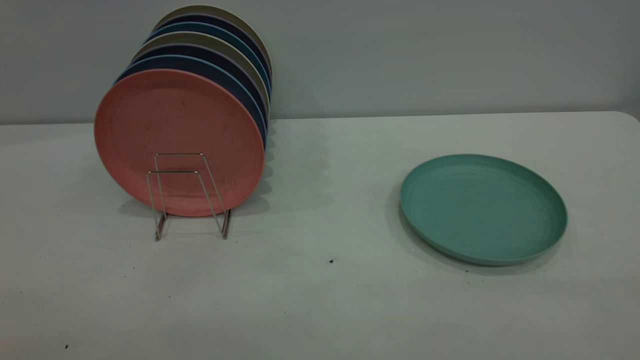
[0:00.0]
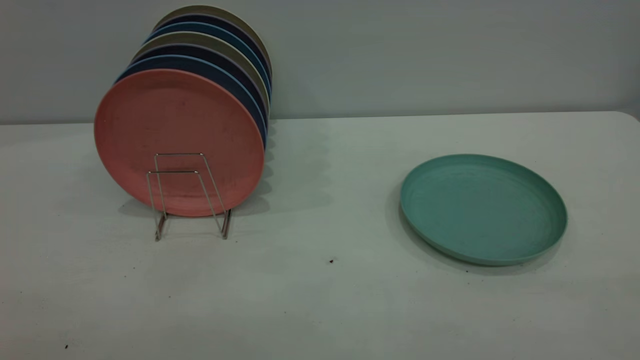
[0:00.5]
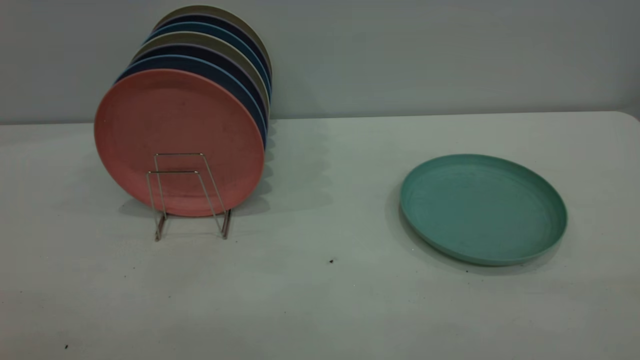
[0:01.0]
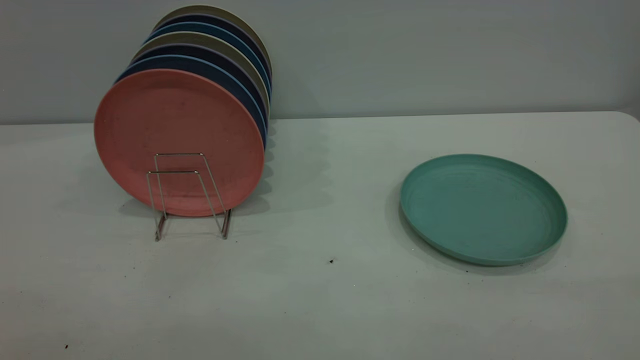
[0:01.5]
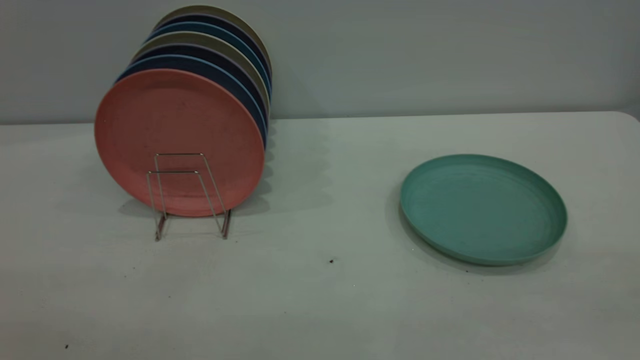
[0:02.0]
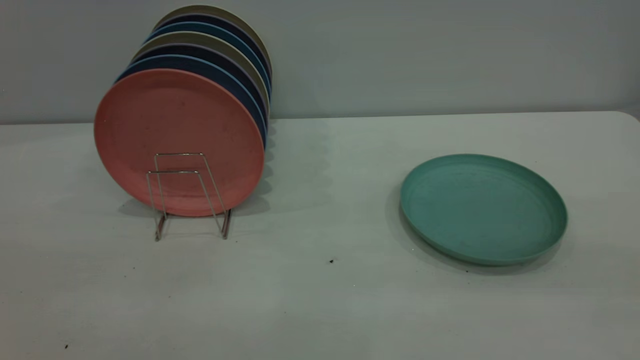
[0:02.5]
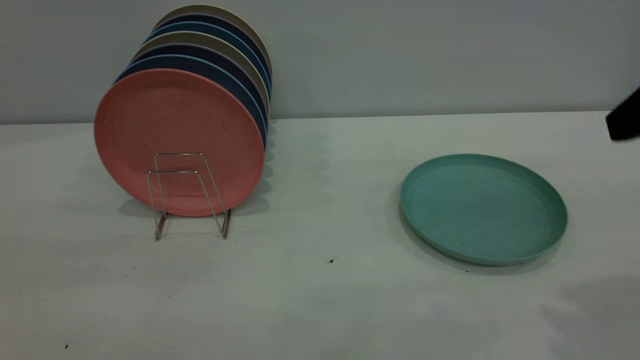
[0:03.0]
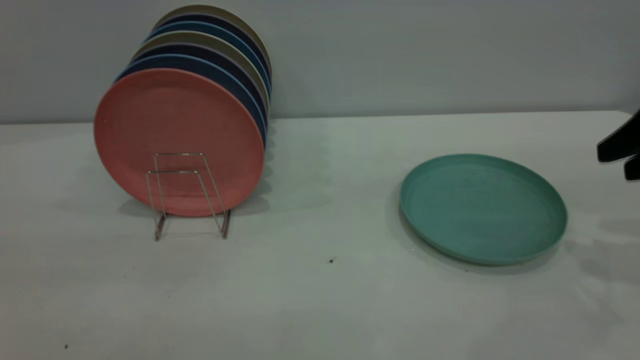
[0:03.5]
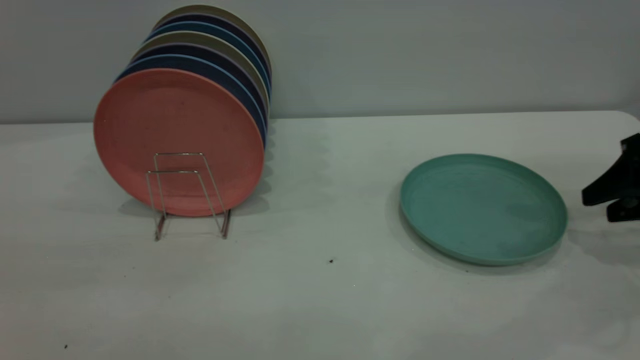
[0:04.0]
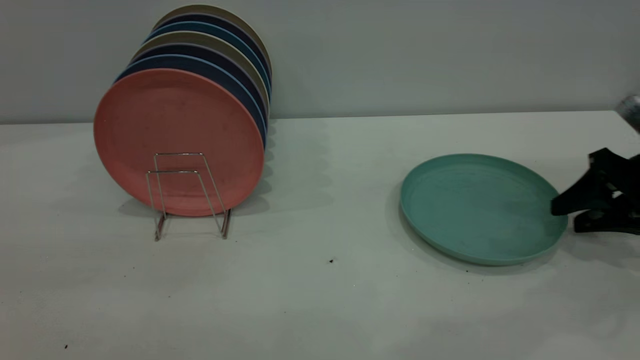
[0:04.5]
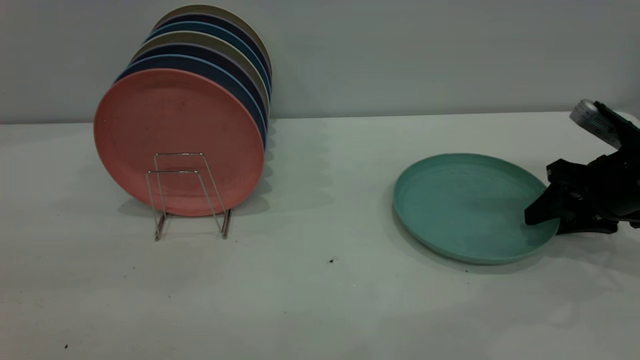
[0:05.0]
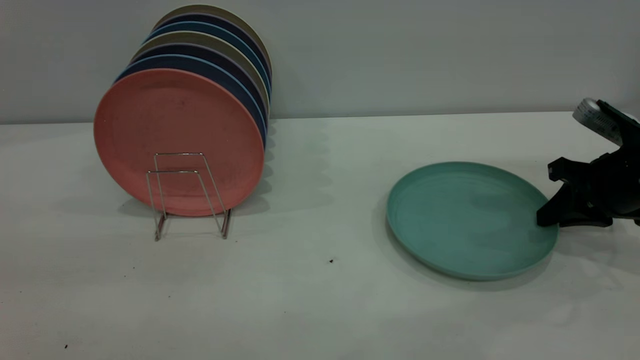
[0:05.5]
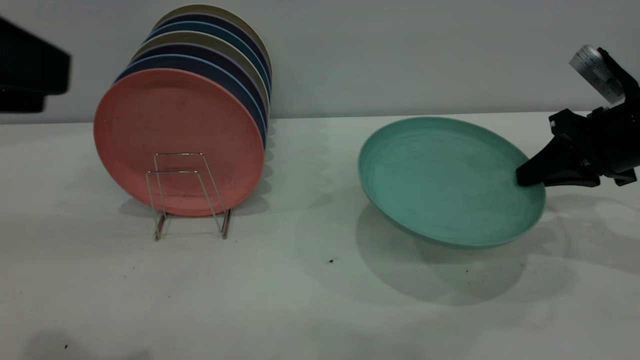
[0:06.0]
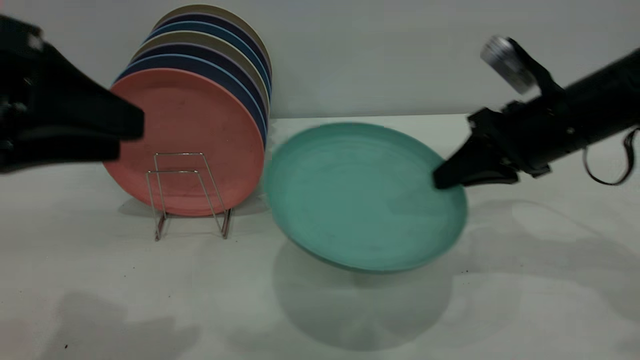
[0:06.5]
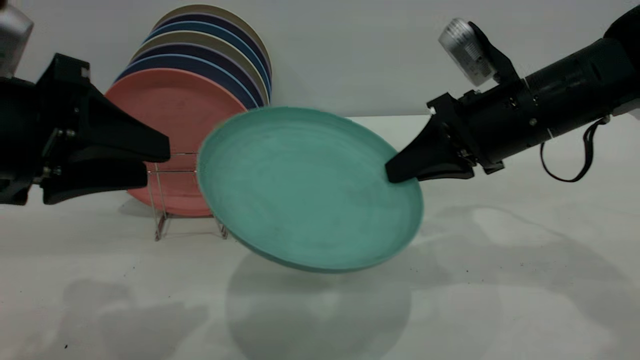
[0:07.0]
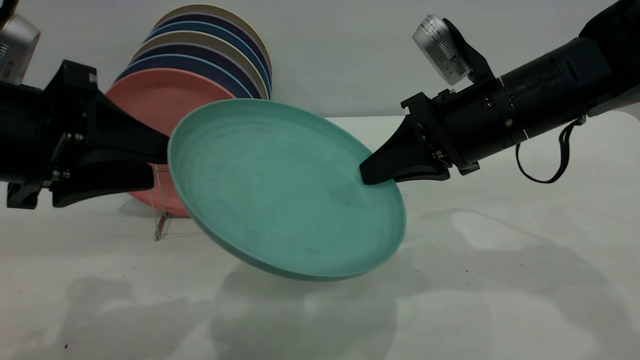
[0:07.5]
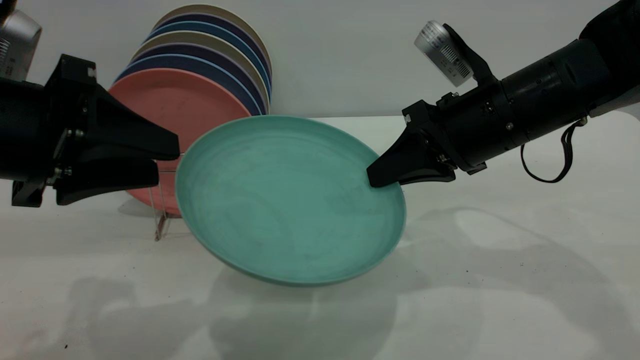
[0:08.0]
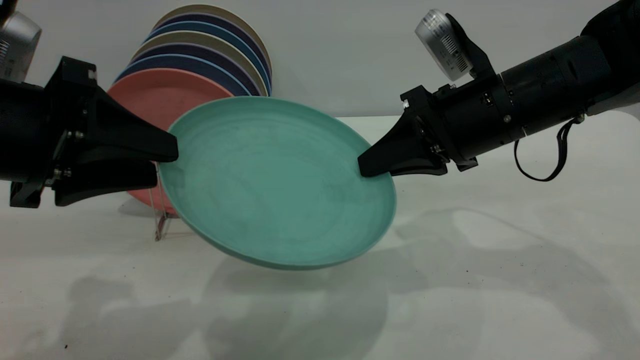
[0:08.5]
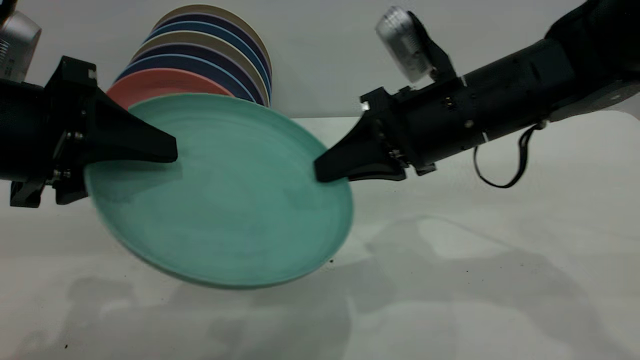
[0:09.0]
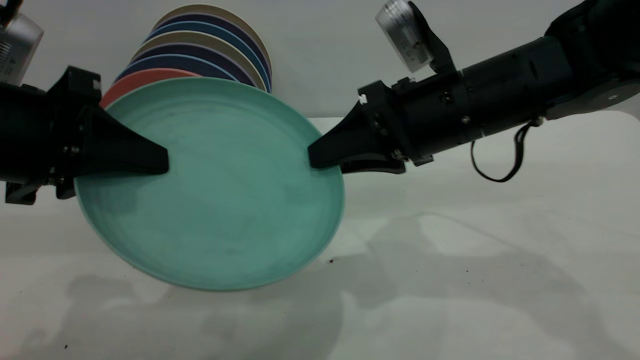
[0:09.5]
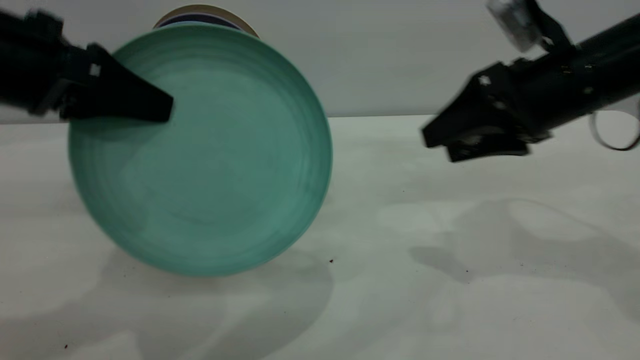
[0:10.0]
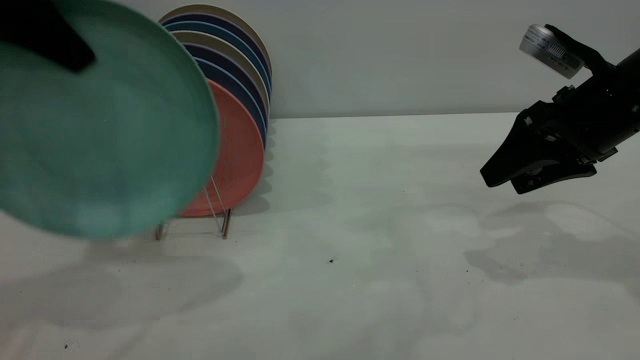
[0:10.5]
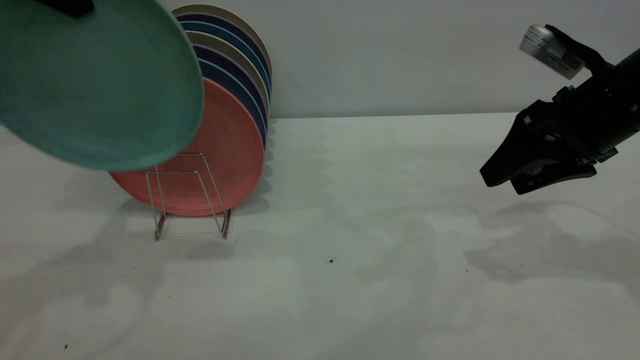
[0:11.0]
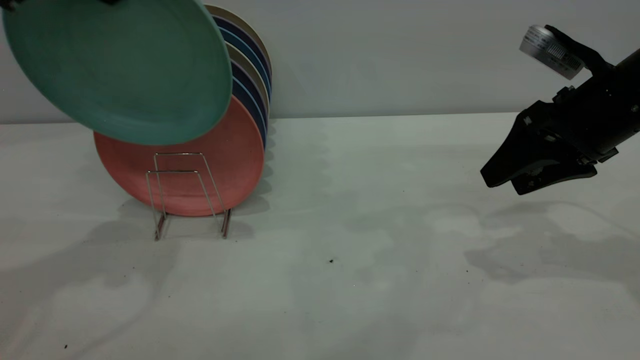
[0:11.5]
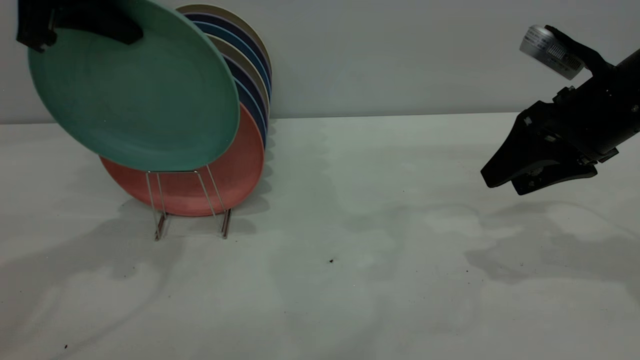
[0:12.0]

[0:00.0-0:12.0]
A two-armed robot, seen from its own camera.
Task of the whole recording: the right gripper grasp the green plate, the right gripper pass the green plate to the left gripper, and the left gripper place the green plate on the plate rack.
Step, 0:00.0 to 0:05.5: Pick up the plate with the right gripper.
Step, 0:06.0 to 0:09.5: Pass the plate from the right gripper to the left gripper.
0:02.0 to 0:04.0: The right gripper heads forward and downward, covering roughly 40 cm.
0:04.0 to 0:06.0: The right gripper heads to the left, covering about 5 cm, and closes up. The left gripper heads forward, covering about 10 cm.
0:06.0 to 0:08.0: The left gripper heads downward and forward, covering approximately 10 cm, while the right gripper travels to the left by roughly 15 cm.
0:08.0 to 0:10.0: The right gripper moves to the right, approximately 5 cm, and opens up. The left gripper moves some 5 cm, and closes its fingers.
0:10.0 to 0:12.0: The left gripper goes roughly 10 cm forward and upward.

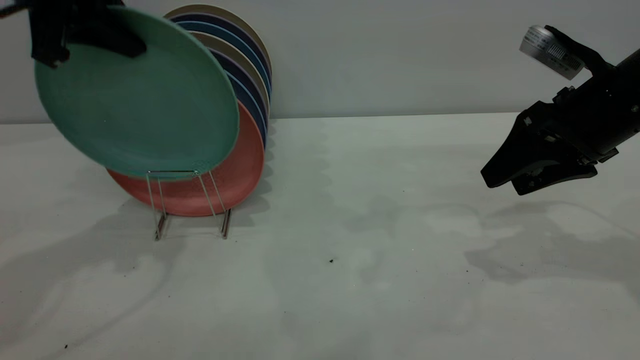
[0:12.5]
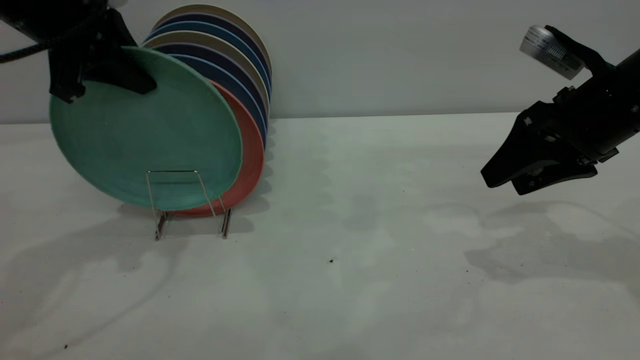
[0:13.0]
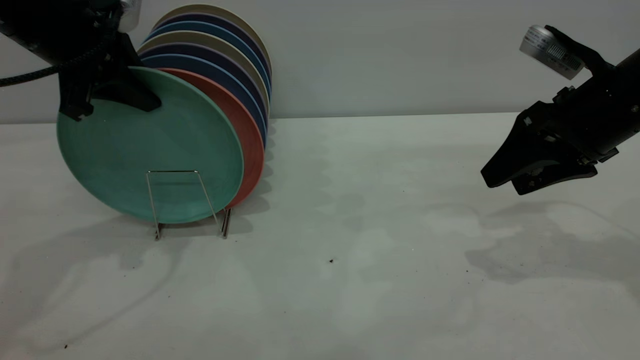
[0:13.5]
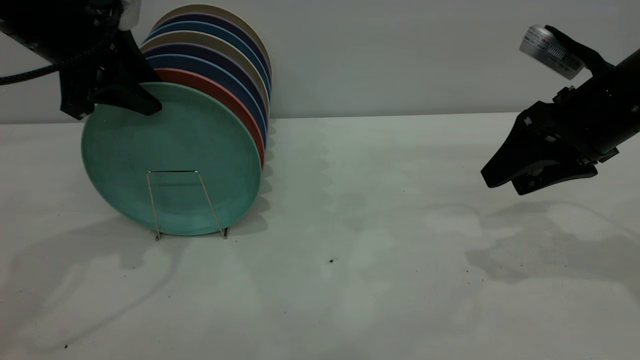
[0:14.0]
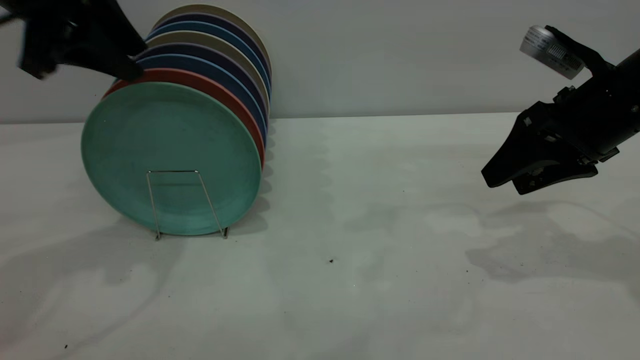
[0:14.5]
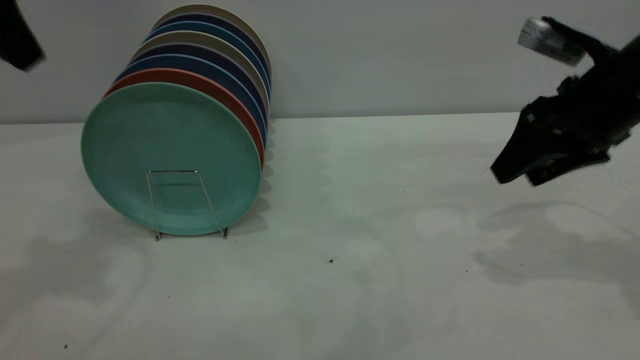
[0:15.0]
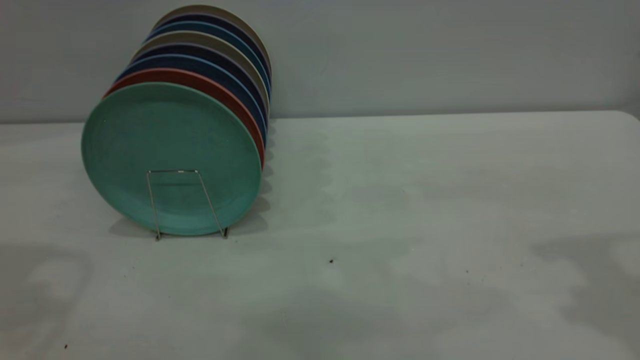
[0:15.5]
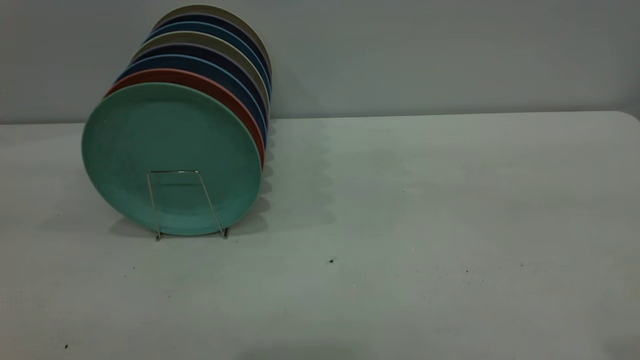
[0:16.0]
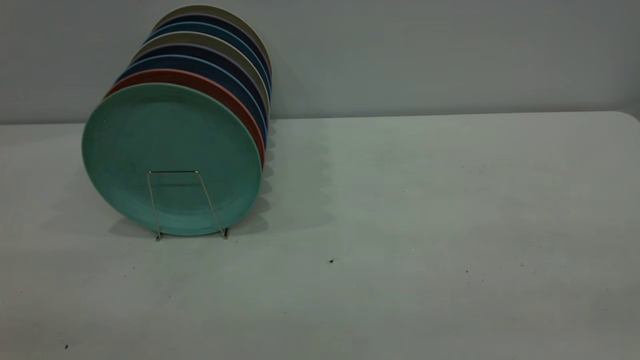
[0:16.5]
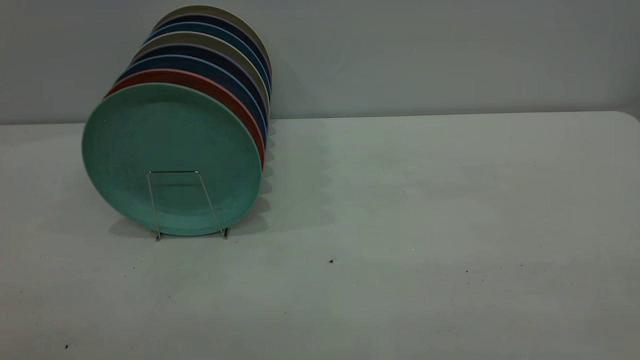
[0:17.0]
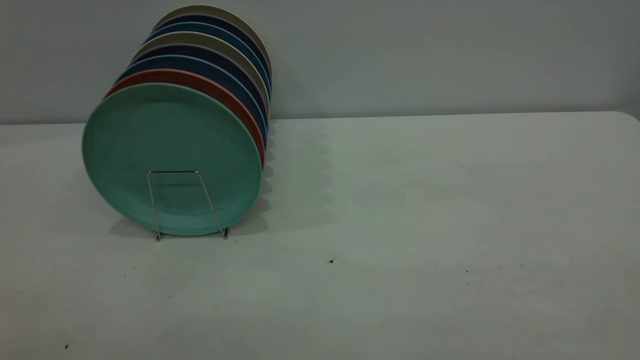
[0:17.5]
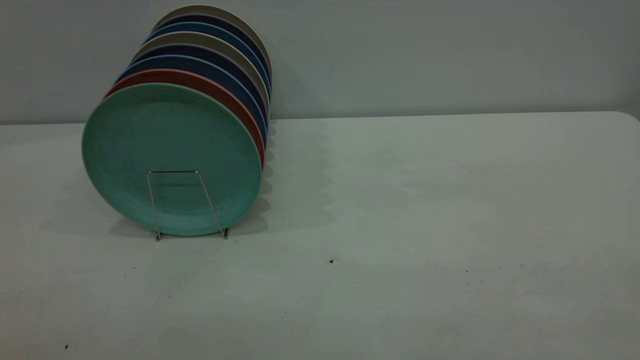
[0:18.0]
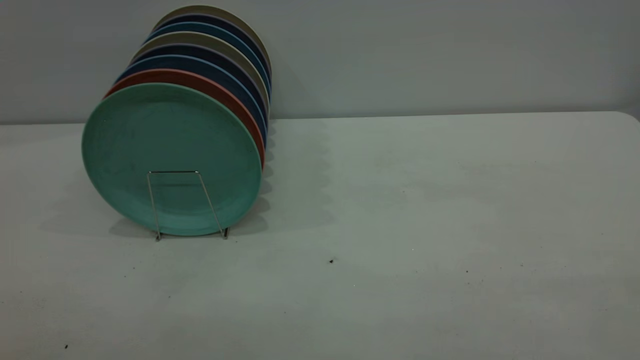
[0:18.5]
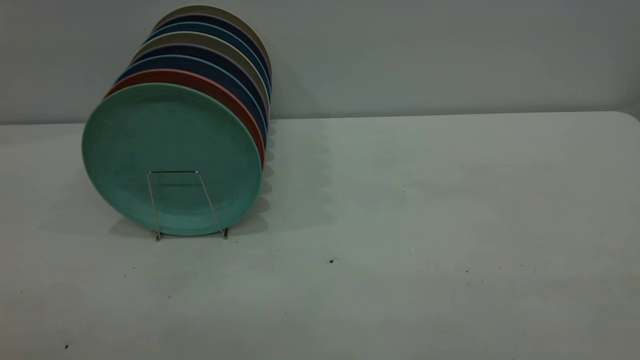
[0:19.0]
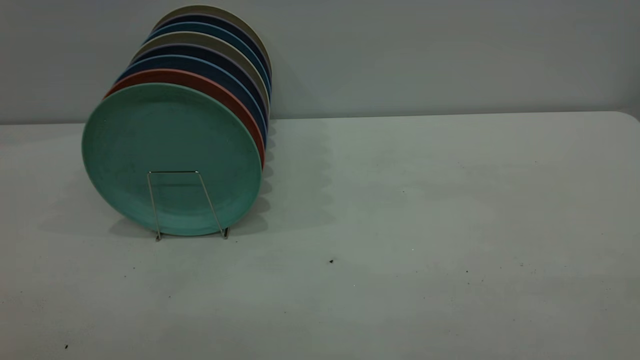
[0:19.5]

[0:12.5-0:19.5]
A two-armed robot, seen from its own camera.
Task of the whole recording: the right gripper grasp the green plate, the right gripper pass the green plate to the left gripper, and the left gripper place the green plate on the plate rack.
Step, 0:12.5 to 0:14.5: Place the plate on the shelf.
0:12.5 to 0:14.5: The left gripper opens.
0:14.5 to 0:16.0: The right gripper shifts roughly 30 cm upward and backward. The left gripper goes some 25 cm backward and upward.
